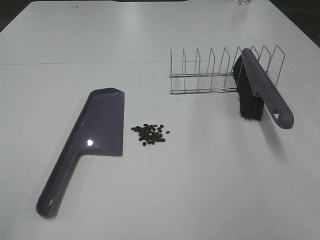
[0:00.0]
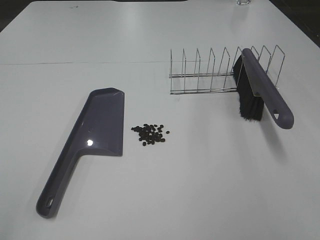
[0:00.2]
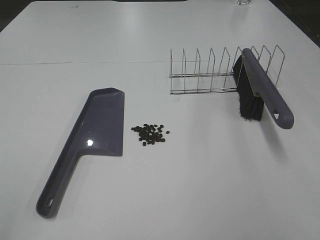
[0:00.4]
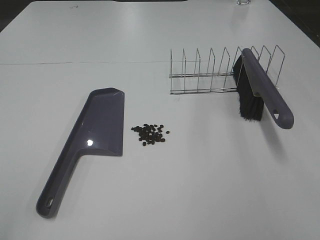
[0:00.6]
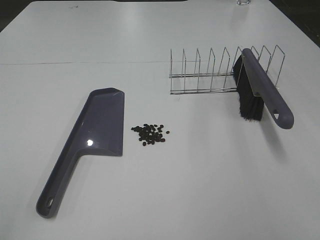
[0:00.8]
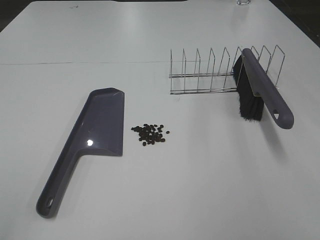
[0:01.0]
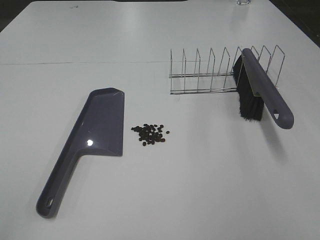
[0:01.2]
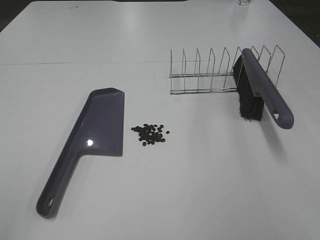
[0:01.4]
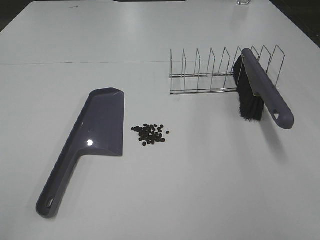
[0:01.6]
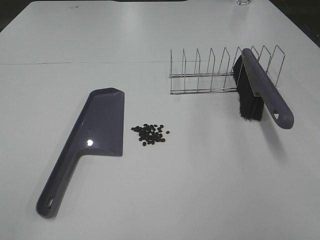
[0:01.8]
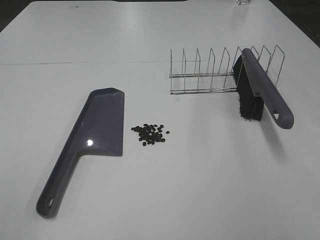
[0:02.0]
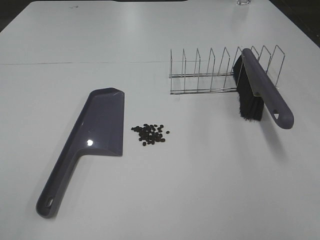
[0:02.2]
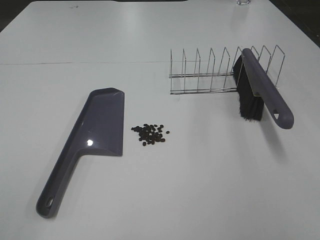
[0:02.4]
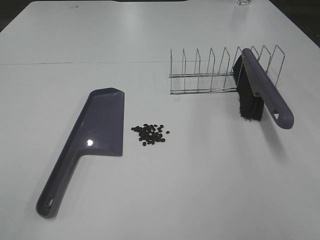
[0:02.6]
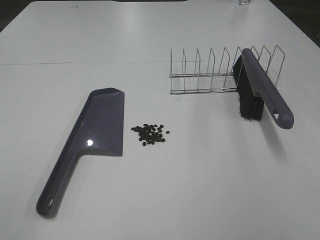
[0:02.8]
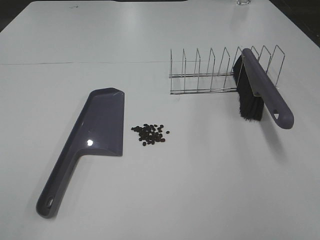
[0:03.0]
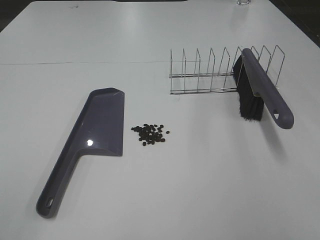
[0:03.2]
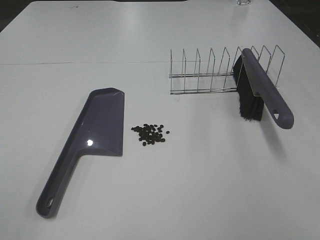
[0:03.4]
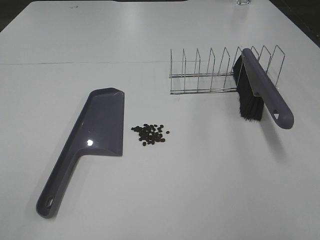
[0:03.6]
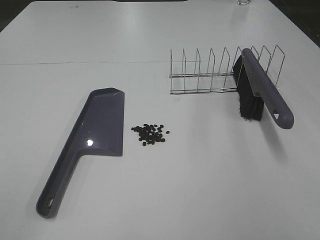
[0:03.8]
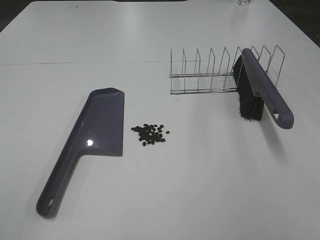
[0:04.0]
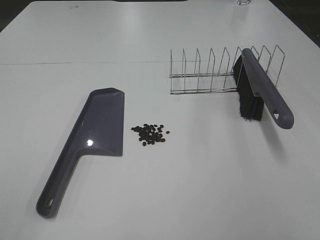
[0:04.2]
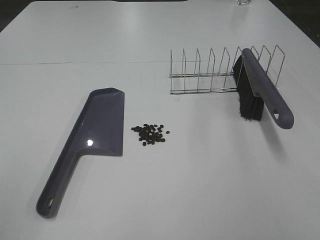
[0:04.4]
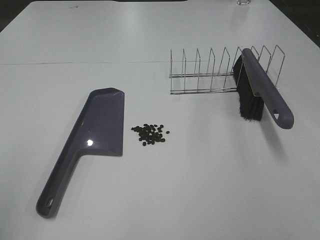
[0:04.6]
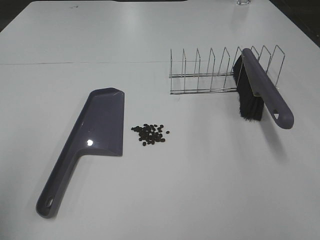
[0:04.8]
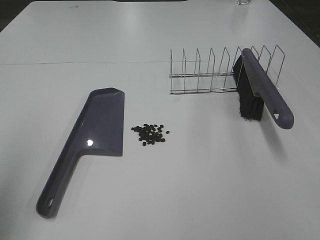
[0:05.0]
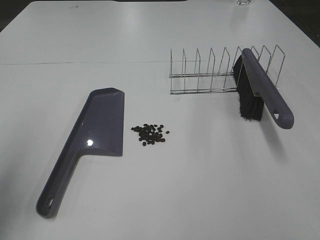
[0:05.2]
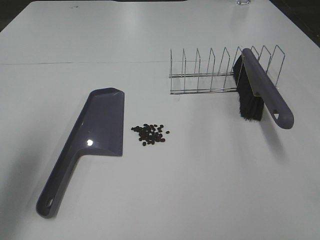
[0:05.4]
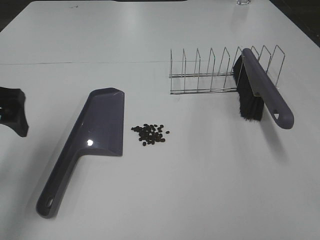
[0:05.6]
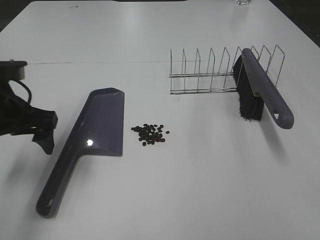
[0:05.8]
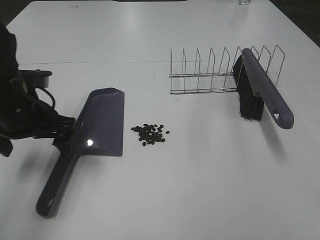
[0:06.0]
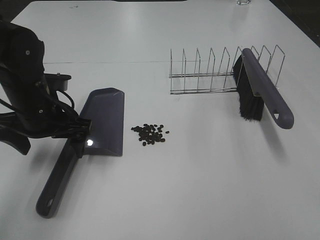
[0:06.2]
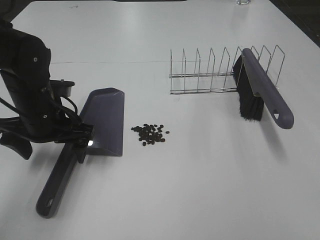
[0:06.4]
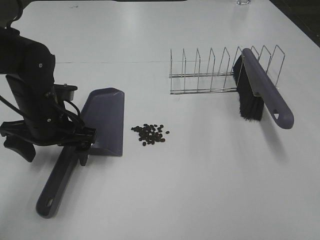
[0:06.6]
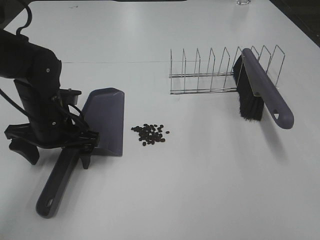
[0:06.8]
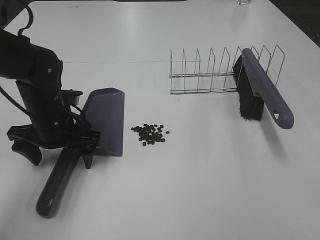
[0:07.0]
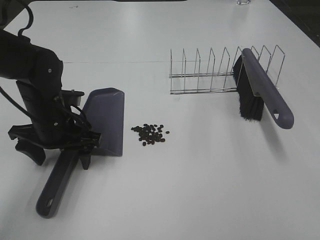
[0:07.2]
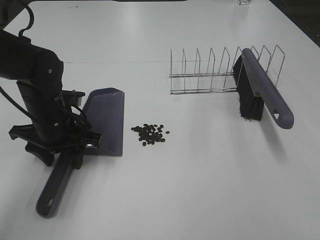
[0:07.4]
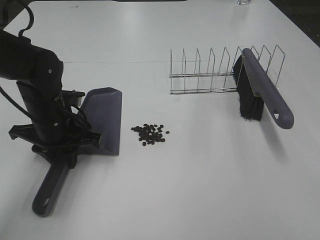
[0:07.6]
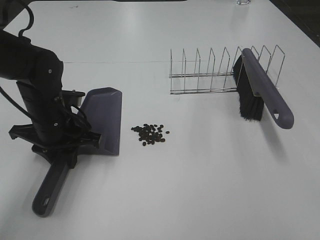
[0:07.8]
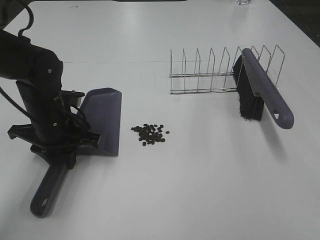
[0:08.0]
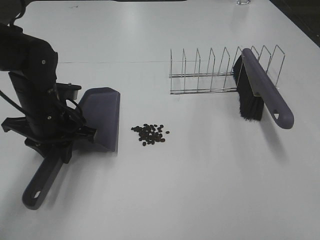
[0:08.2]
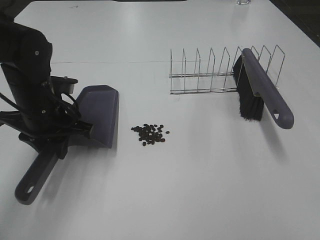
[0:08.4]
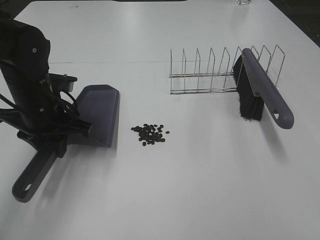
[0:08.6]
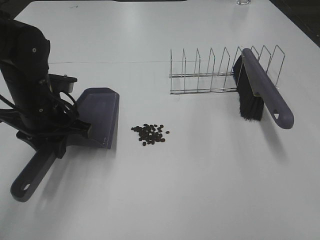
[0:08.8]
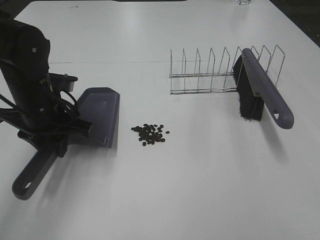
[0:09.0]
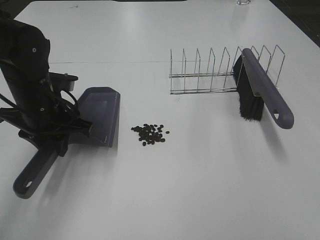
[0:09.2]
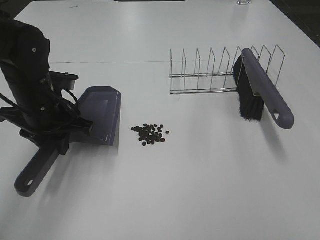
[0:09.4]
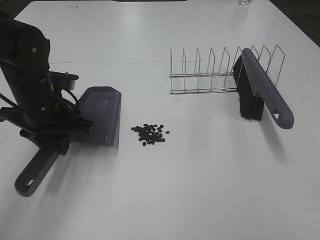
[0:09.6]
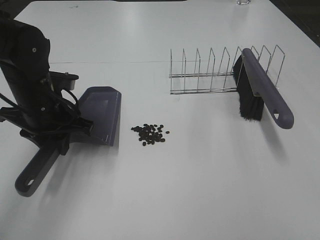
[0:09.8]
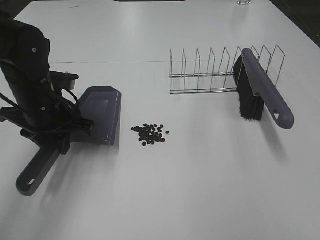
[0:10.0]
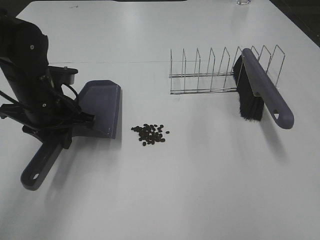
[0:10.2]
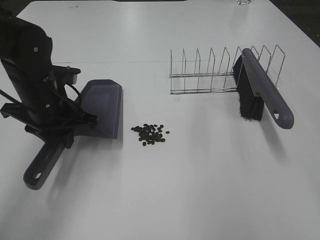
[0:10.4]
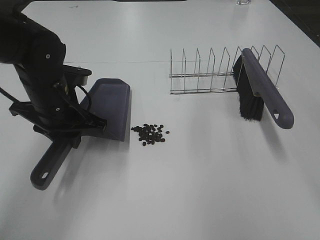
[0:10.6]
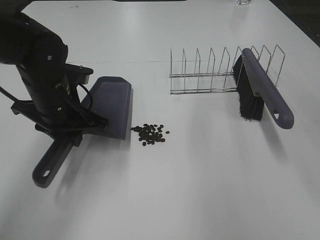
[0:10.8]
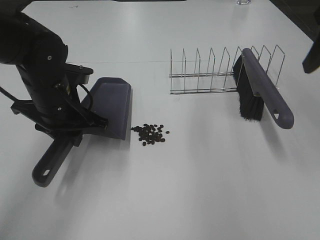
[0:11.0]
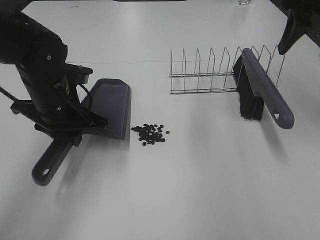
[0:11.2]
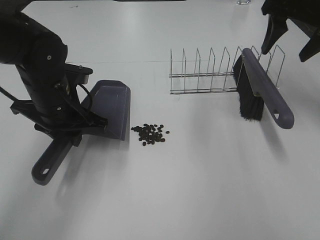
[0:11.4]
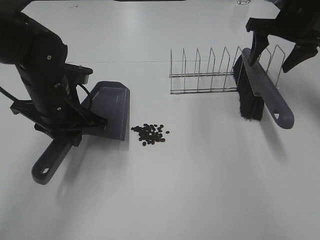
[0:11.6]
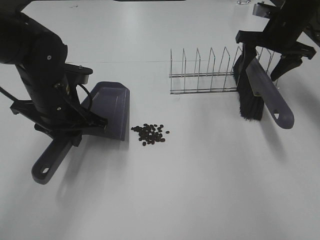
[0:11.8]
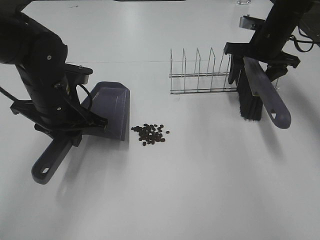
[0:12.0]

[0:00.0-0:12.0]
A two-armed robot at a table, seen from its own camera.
Task of the whole recording: Sweep Coffee Bean.
Step, 0:00.0 to 0:07.4: Left hand: grab the dustpan.
0:01.6 to 0:03.0: Both grippers stay put.
0:04.4 to 0:06.0: The left gripper shifts approximately 35 cm forward, downward and to the right.
0:06.0 to 0:07.6: The left gripper heads downward, covering approximately 5 cm, and closes up.
0:07.6 to 0:09.0: The grippers move only a little.
0:09.0 to 0:10.4: The right gripper is displaced forward and upward by roughly 15 cm.
0:10.4 to 0:12.0: The right gripper is displaced forward and downward by approximately 40 cm.

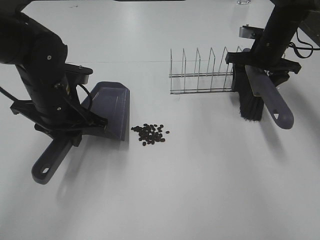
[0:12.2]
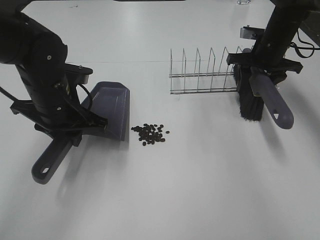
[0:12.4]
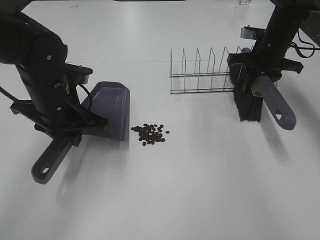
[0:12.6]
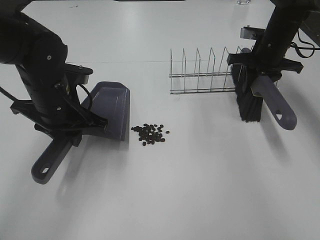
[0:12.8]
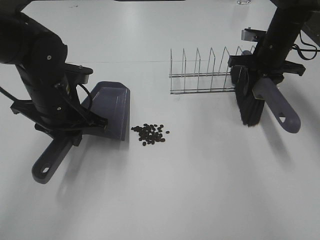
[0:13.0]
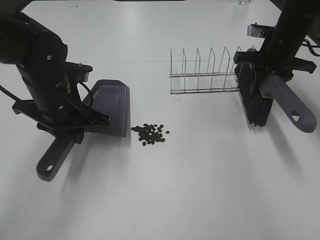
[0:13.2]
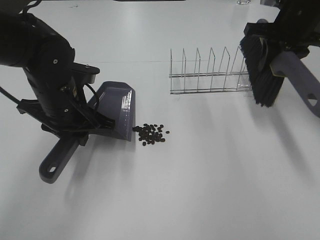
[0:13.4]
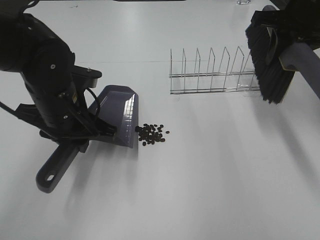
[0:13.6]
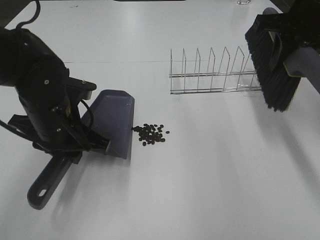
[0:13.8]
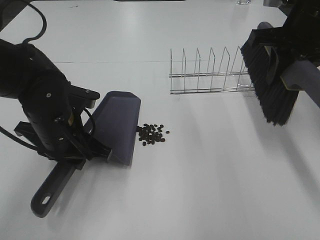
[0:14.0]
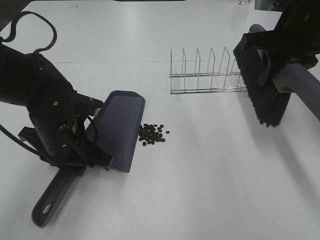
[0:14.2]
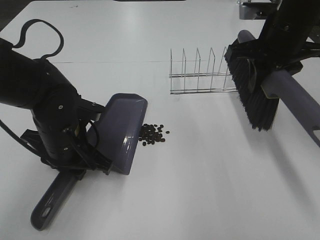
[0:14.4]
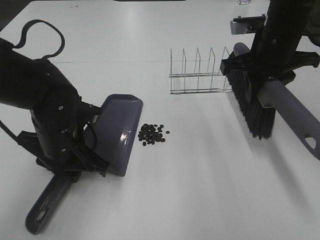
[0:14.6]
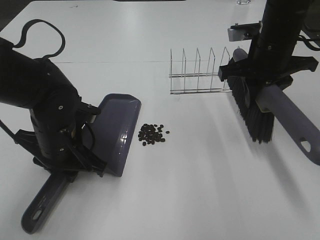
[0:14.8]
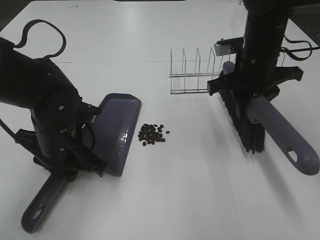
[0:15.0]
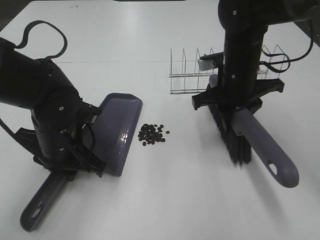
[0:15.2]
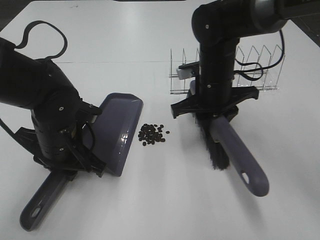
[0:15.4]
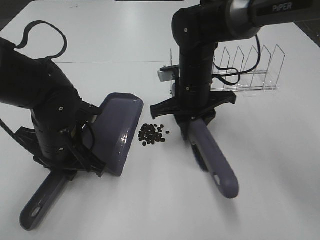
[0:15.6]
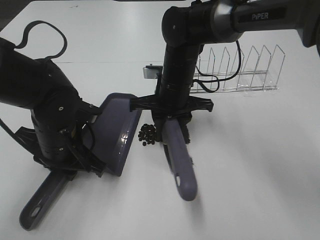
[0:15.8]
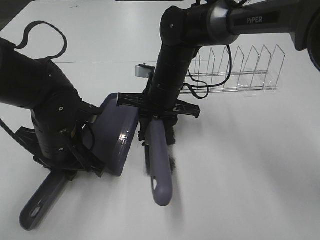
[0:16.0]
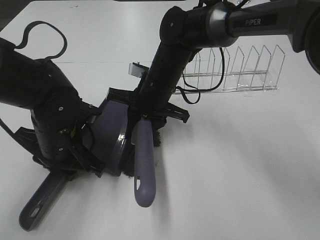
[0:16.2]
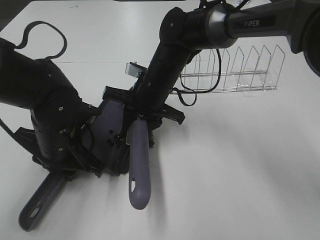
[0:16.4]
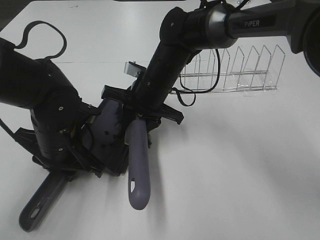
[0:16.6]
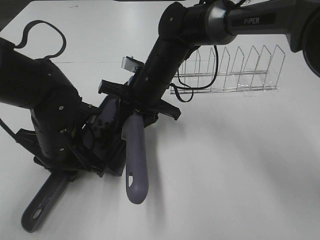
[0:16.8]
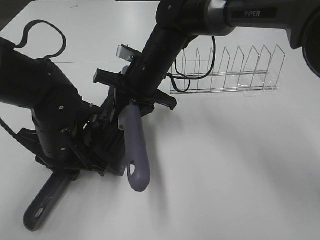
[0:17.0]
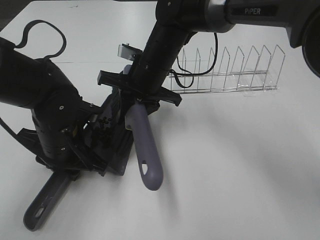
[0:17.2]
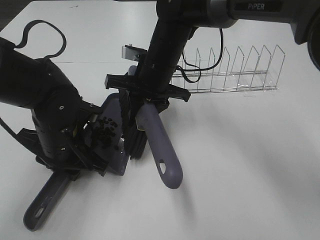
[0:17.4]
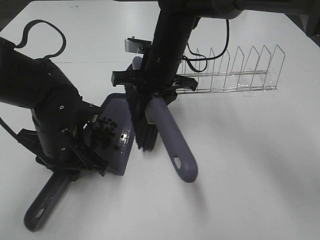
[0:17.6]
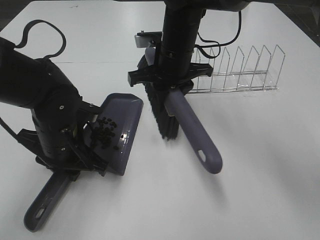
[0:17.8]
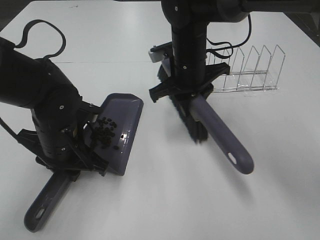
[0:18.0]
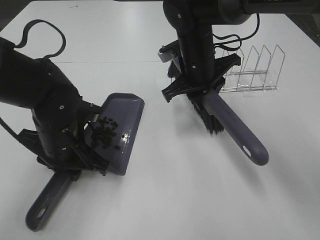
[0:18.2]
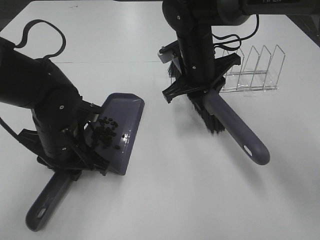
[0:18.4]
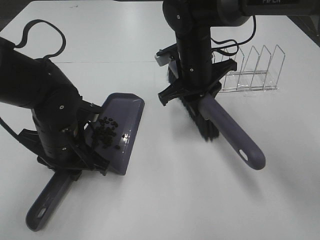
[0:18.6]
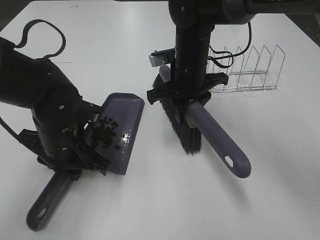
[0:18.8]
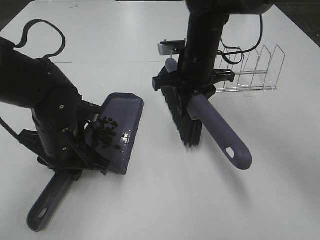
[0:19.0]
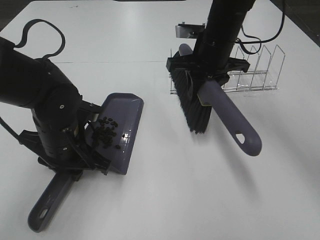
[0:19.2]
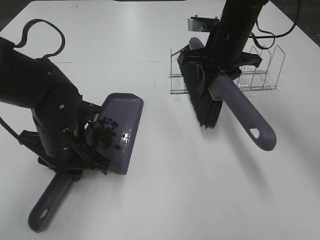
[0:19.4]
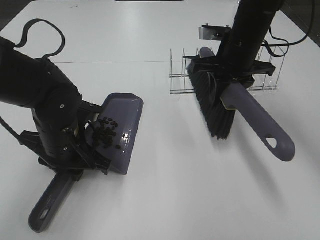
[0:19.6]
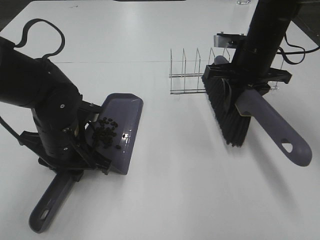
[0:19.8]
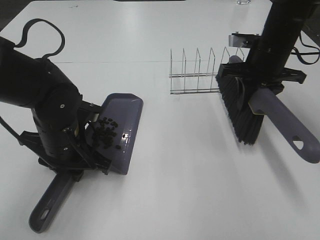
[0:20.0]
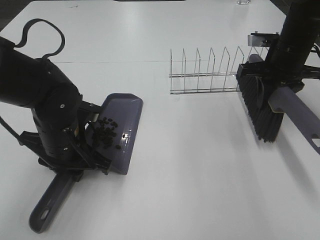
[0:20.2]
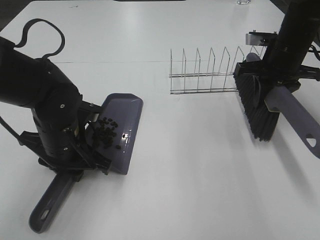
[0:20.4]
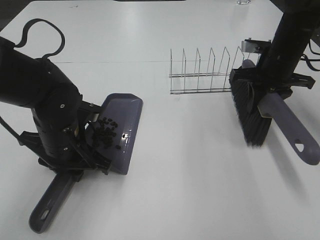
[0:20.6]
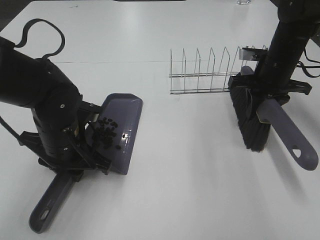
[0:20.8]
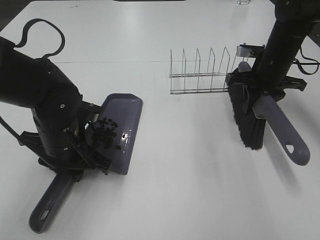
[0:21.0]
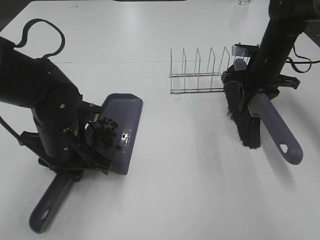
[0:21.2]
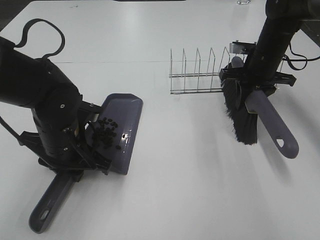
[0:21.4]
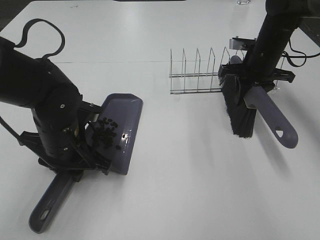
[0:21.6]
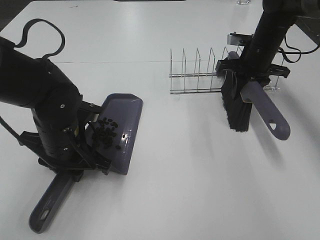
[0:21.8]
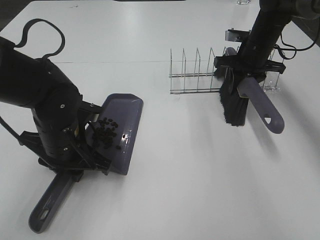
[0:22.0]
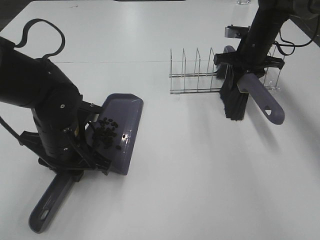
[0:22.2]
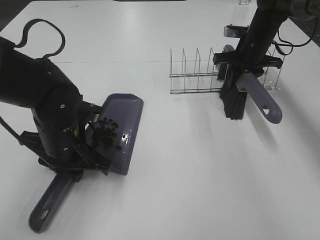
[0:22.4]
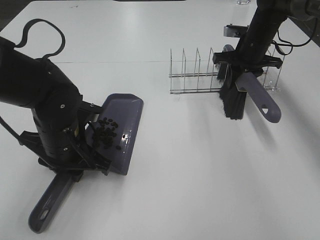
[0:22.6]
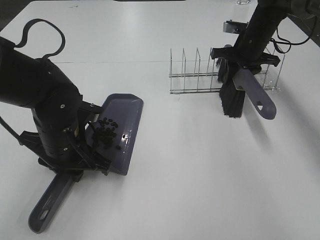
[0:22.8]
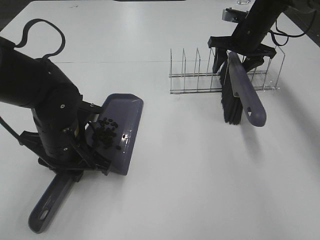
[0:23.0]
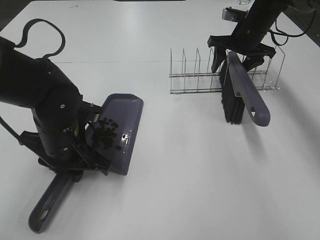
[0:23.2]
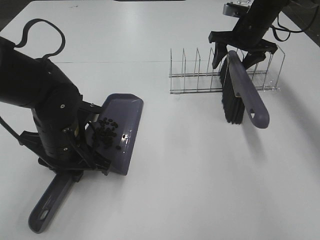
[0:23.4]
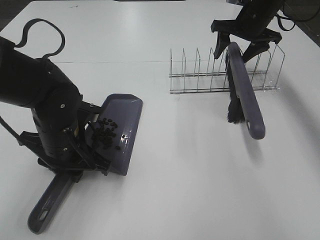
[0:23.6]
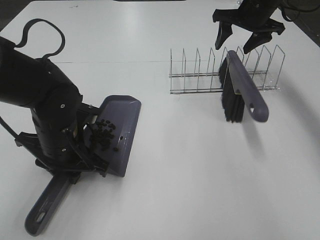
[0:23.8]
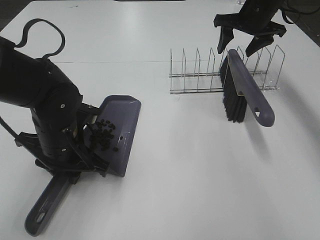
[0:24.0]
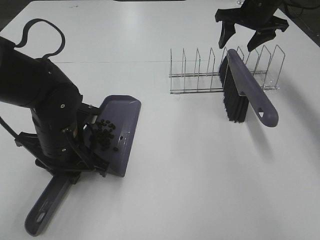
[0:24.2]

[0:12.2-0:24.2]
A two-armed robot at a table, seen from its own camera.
Task of the whole recording: Sweep Coffee Bean.
Step, 0:12.2 to 0:15.4: Left hand: move the dustpan to the left side of the coffee beans.
Step, 0:12.6 to 0:17.4: Right hand:sweep the coffee beans into the dustpan.
Step, 0:17.6 to 0:23.6: Right hand:place the broom on the rack.
0:12.2 to 0:13.8: The right gripper heads upward and backward, covering roughly 15 cm, and closes up.
0:13.8 to 0:15.2: The right gripper travels downward and to the left by roughly 15 cm.
0:15.2 to 0:16.6: The right gripper travels to the left by some 15 cm.
0:16.6 to 0:18.2: The right gripper goes roughly 5 cm to the right.
0:18.2 to 0:19.8: The right gripper is displaced to the right by roughly 10 cm.
0:19.8 to 0:21.2: The right gripper changes place by about 10 cm.
0:21.2 to 0:22.6: The right gripper goes about 5 cm forward.
0:22.6 to 0:24.2: The right gripper shifts about 10 cm upward, and opens.
